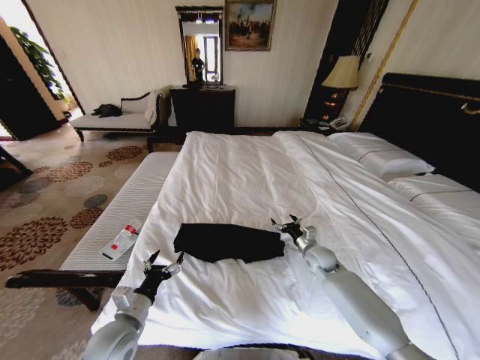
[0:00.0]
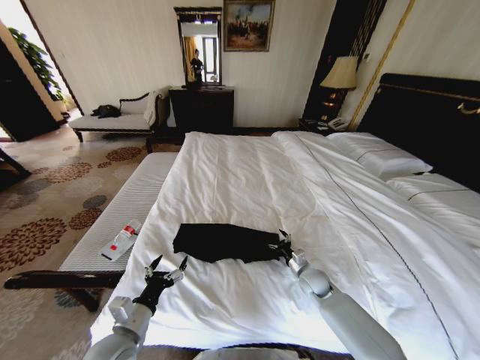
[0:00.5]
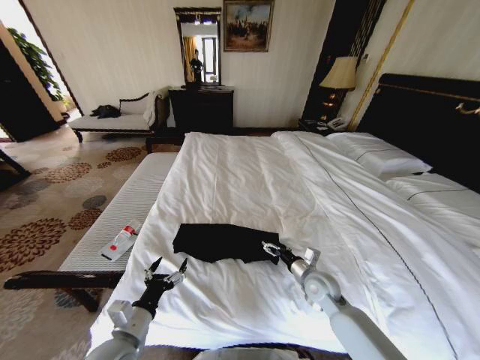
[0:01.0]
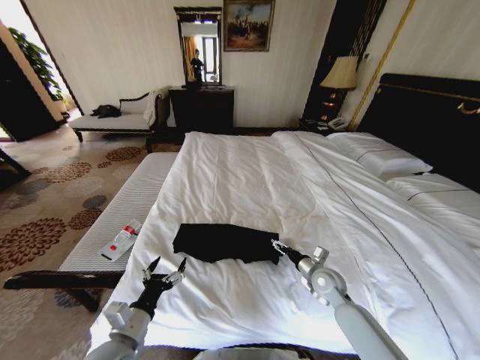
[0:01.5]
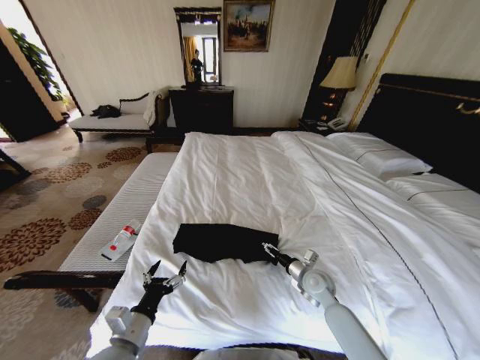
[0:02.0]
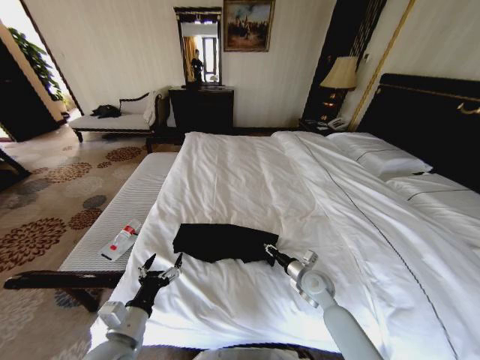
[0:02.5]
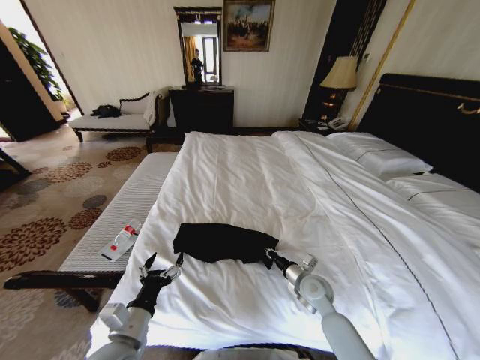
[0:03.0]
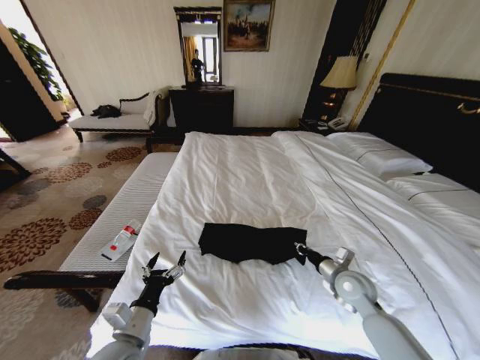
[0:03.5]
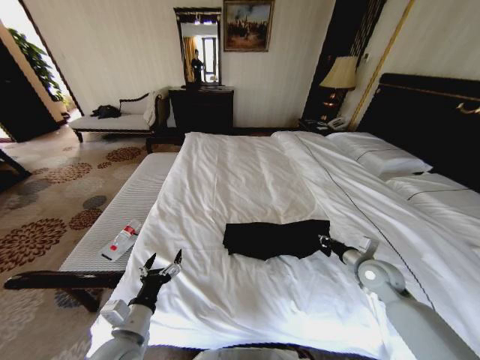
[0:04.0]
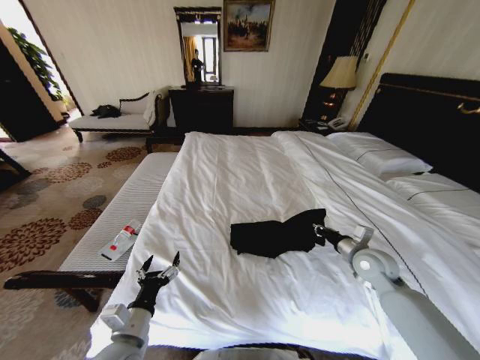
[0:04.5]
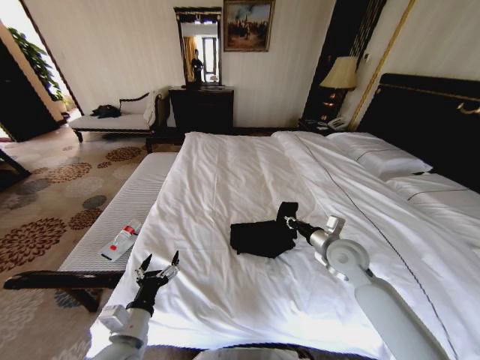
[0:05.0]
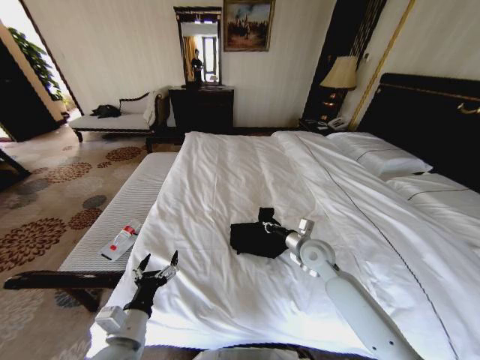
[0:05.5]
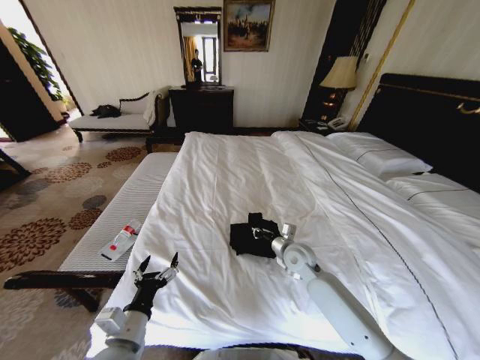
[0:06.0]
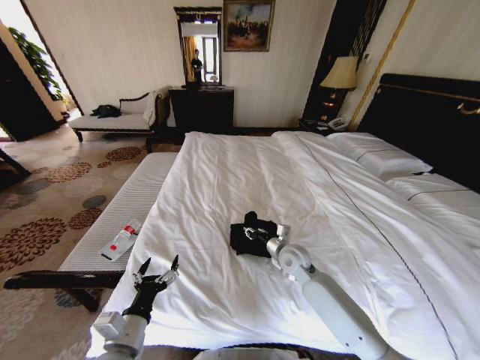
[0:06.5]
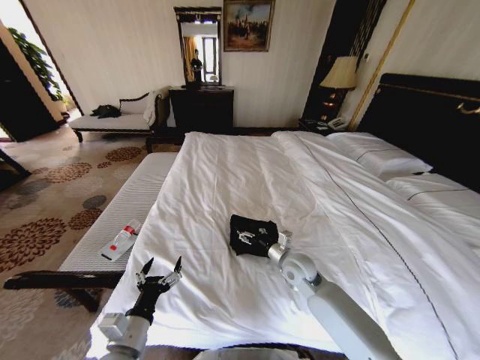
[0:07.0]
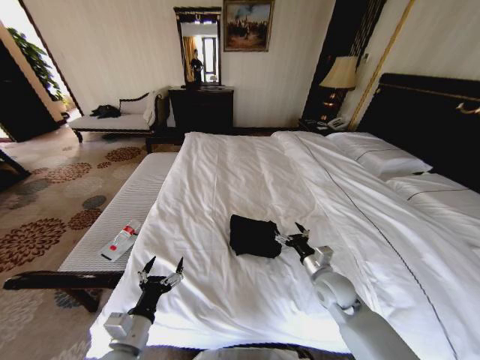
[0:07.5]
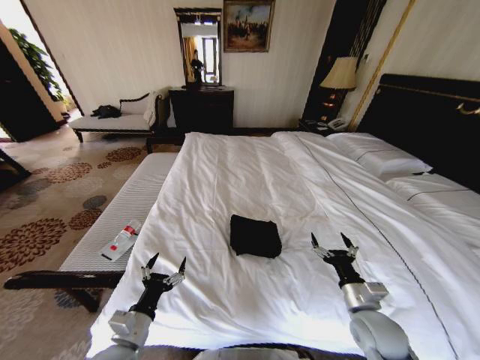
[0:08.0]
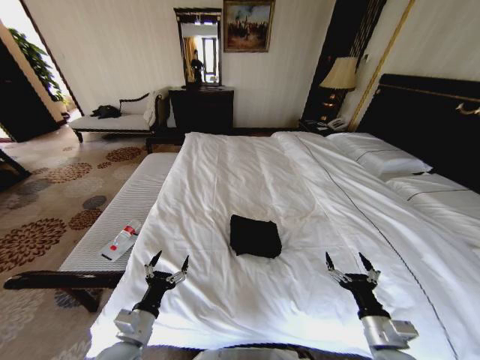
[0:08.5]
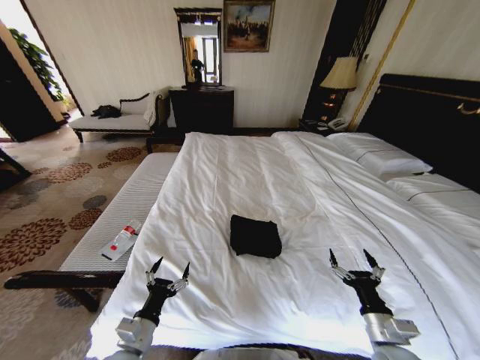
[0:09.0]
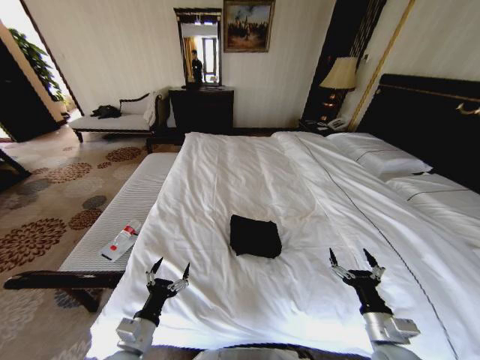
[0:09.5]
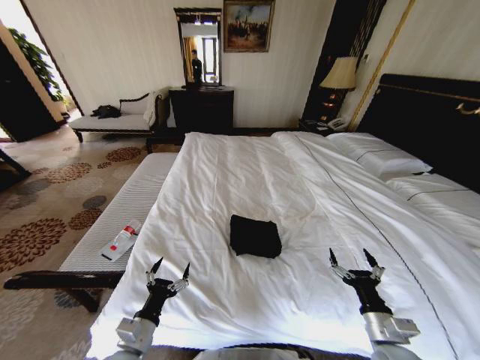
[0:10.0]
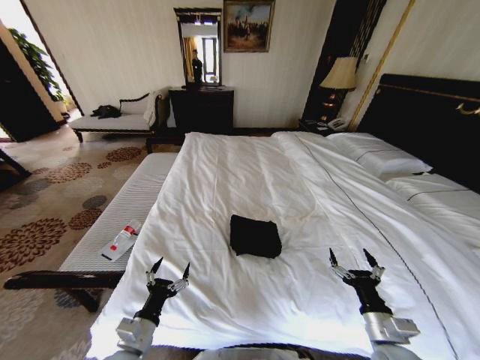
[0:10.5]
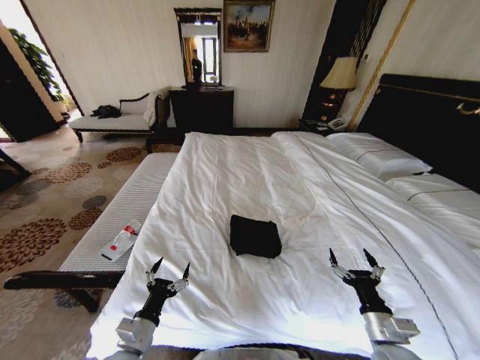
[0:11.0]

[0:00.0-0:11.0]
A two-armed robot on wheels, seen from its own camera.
Task of the whole recording: Fold the clothes on the bed.
0:00.0 to 0:02.0: The left gripper moves roughly 5 cm, while the right gripper is displaced backward by some 10 cm.
0:02.0 to 0:03.5: The right gripper goes about 10 cm to the right and upward, and closes.
0:03.5 to 0:05.5: The right gripper shifts roughly 10 cm to the left and forward.
0:05.5 to 0:07.5: The right gripper moves backward, approximately 10 cm, and opens its fingers.
0:07.5 to 0:09.0: The right gripper goes approximately 20 cm backward and to the right.
0:09.0 to 0:11.0: Both grippers stay about where they are.
